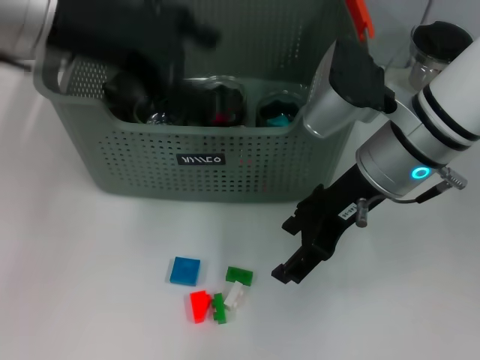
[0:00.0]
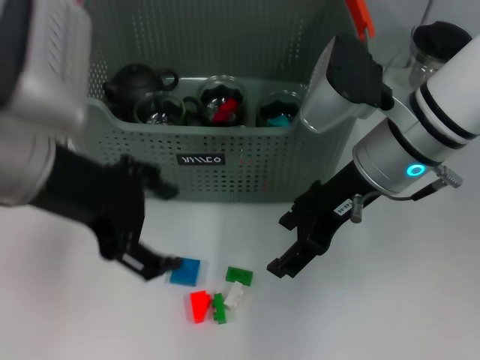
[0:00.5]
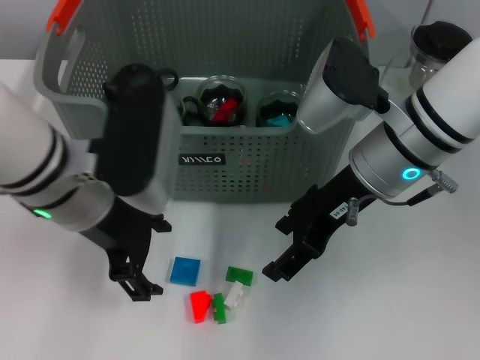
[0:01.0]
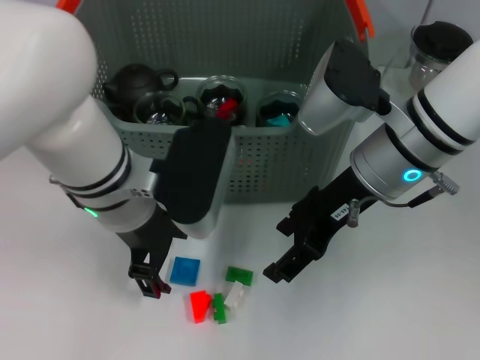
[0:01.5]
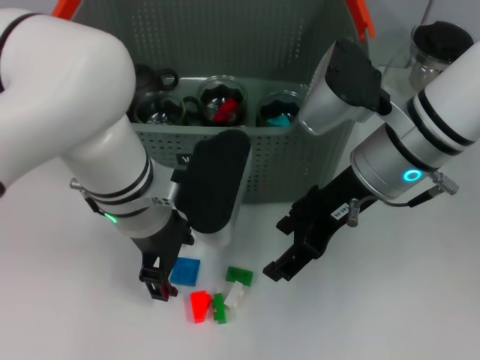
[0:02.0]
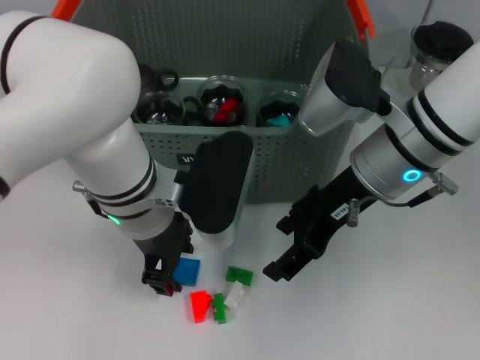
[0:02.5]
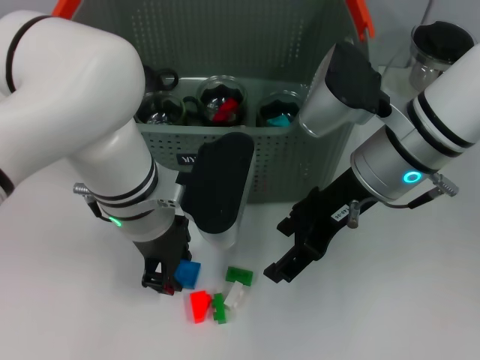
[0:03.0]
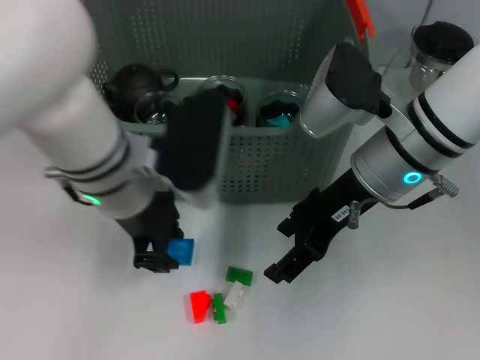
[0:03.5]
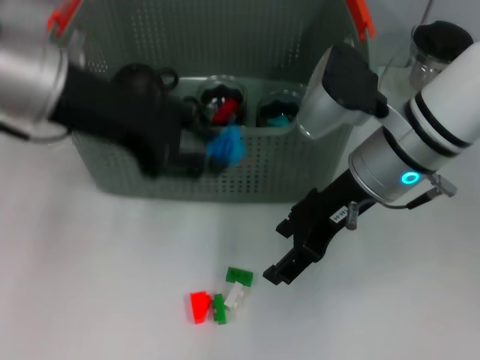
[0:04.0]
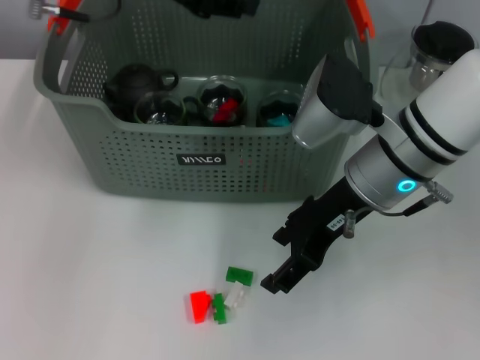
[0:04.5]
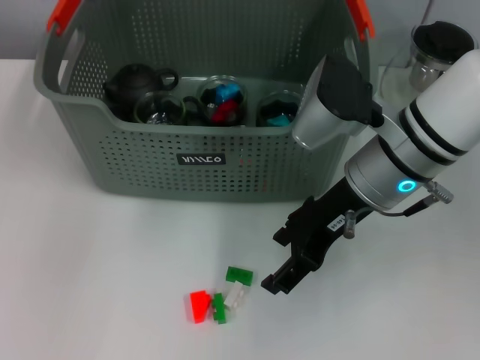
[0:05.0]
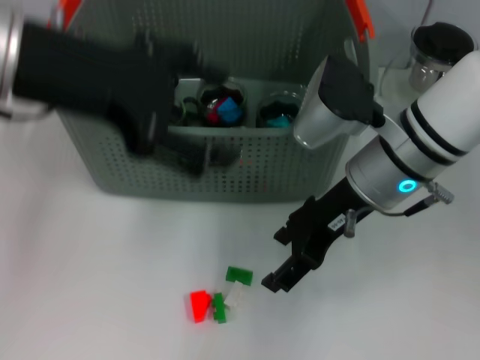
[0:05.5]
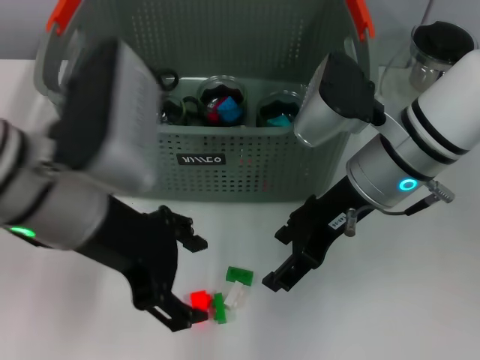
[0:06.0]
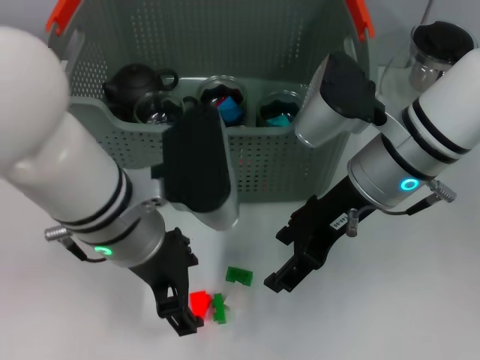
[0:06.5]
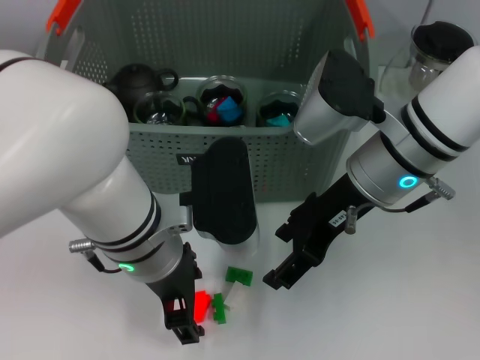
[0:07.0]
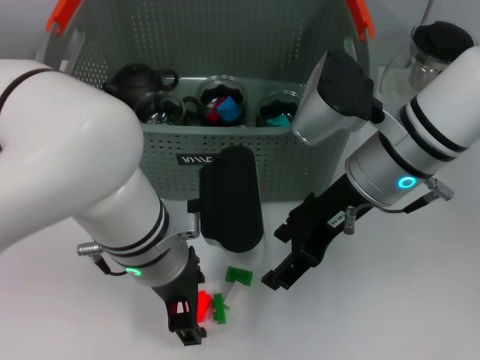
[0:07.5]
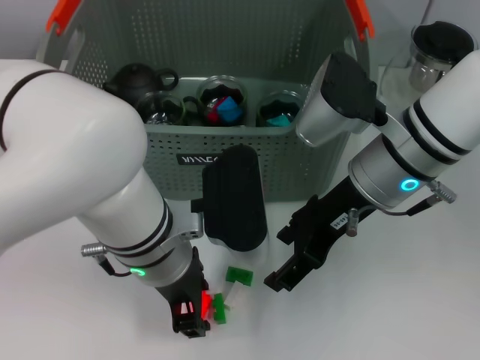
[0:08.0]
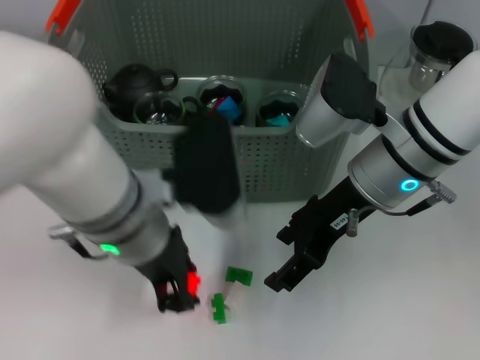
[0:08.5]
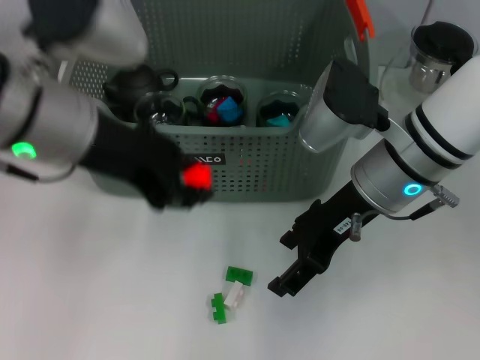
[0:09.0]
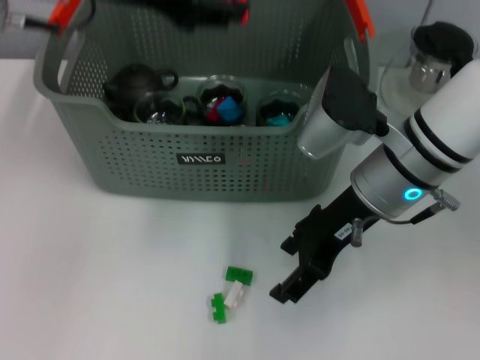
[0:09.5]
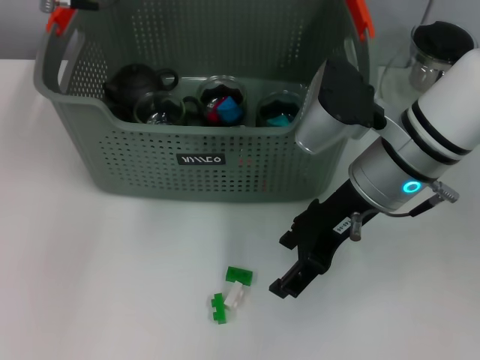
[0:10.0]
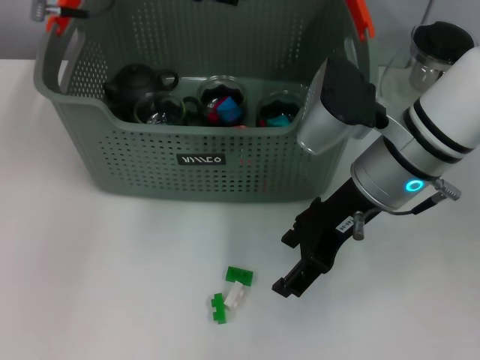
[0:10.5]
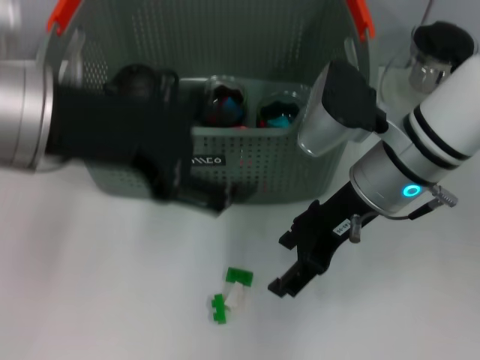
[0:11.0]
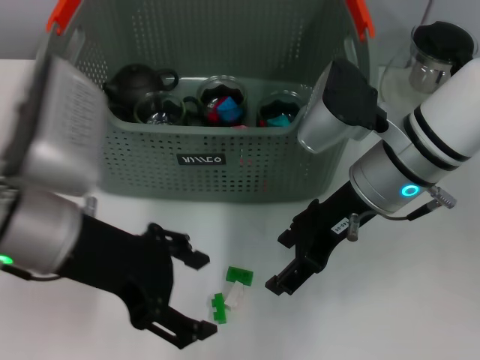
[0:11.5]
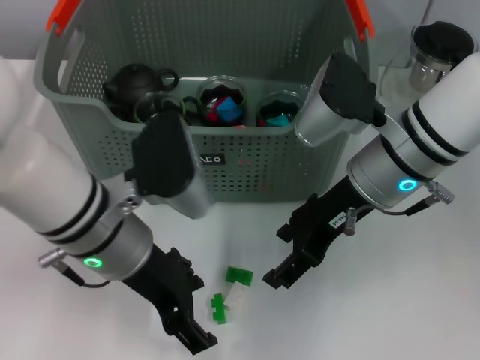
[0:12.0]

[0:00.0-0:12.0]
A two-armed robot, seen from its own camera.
Task of the whole recording: pick up the teacup on the table and place it into the storage bin, pick up the block on the table and place it into the storage bin.
Step, 0.0 to 2.5 s: Grasp the dark blue block with left gripper.
Step, 3.5 to 5.0 s: Place the dark blue block in the storage box with left gripper.
Step, 5.5 to 8.0 s: Grasp the orange block with left gripper.
Step, 8.5 to 10.0 s: Place the orange block in the storage box with left gripper.
0.0 to 2.0 s: The left gripper is displaced downward and to the right by approximately 20 cm.
2.0 to 4.0 s: The left gripper moves upward and to the left, roughly 15 cm, and closes.
4.0 to 6.0 s: The left gripper heads downward and backward, covering roughly 10 cm, and opens up.
6.0 to 8.0 s: The left gripper goes approximately 10 cm downward and to the right.
8.0 to 10.0 s: The left gripper travels upward, forward and to the left by roughly 20 cm, and closes its fingers.
10.0 to 12.0 s: The left gripper goes some 20 cm downward and backward, and opens up.

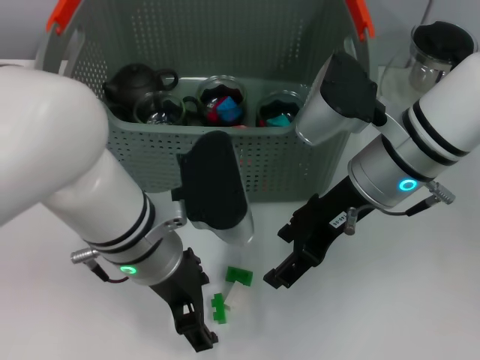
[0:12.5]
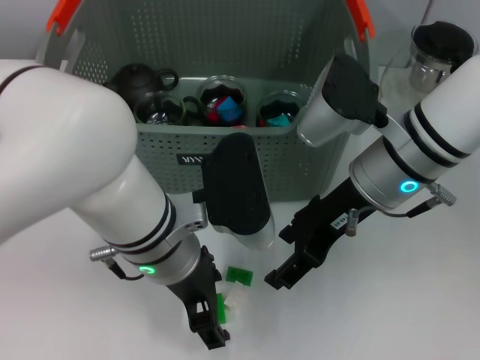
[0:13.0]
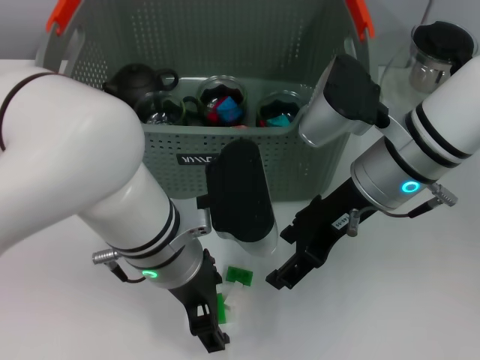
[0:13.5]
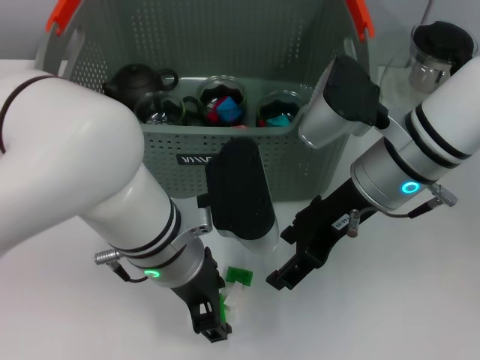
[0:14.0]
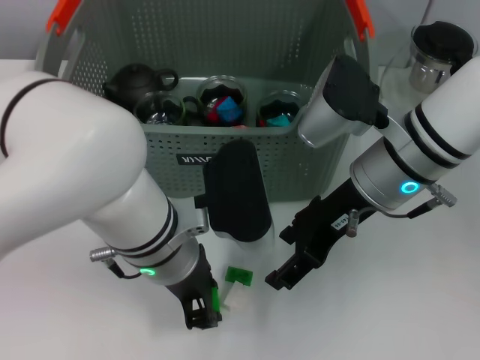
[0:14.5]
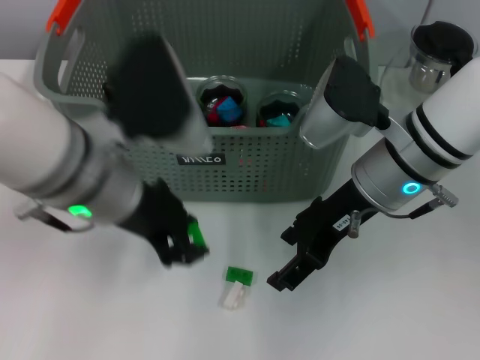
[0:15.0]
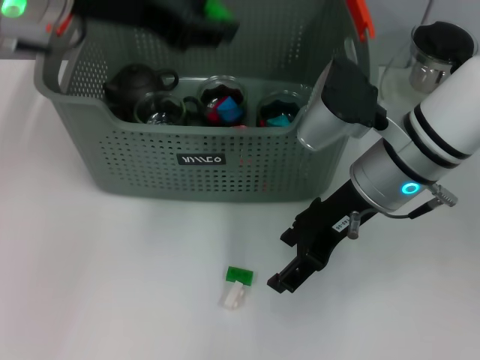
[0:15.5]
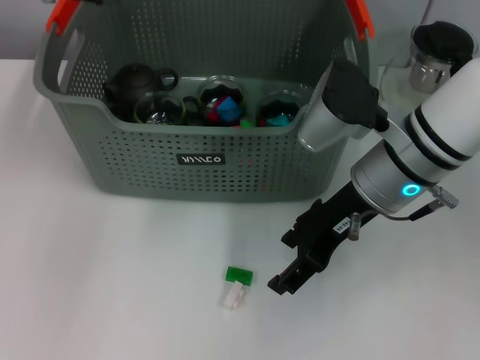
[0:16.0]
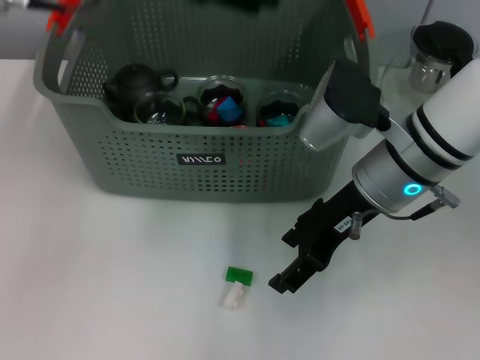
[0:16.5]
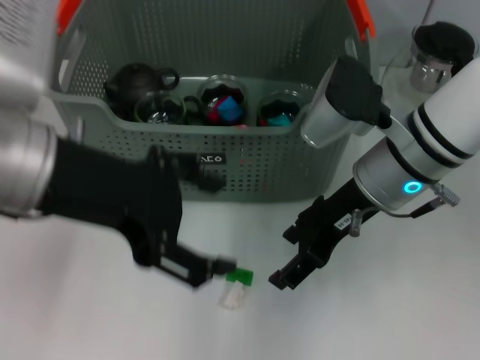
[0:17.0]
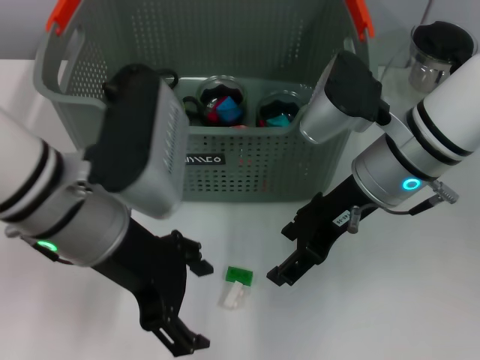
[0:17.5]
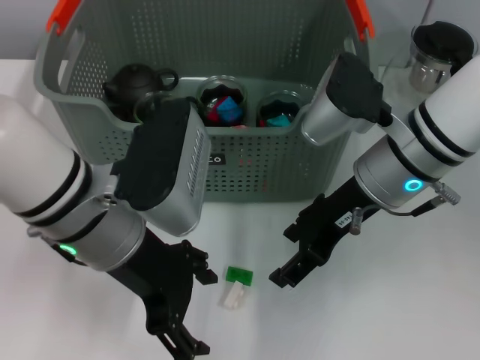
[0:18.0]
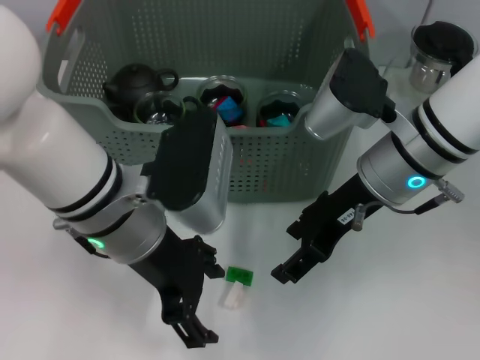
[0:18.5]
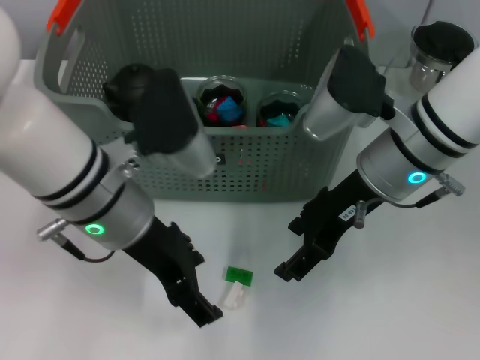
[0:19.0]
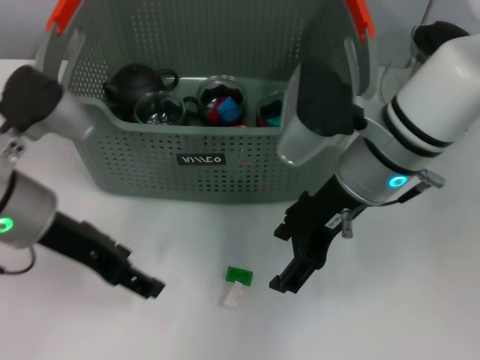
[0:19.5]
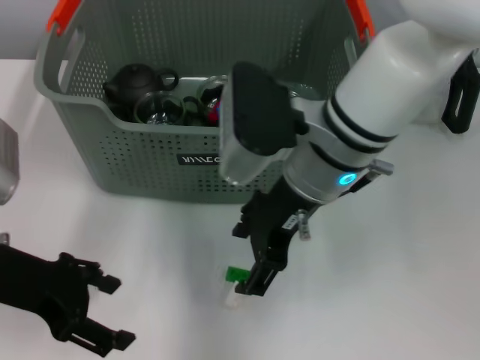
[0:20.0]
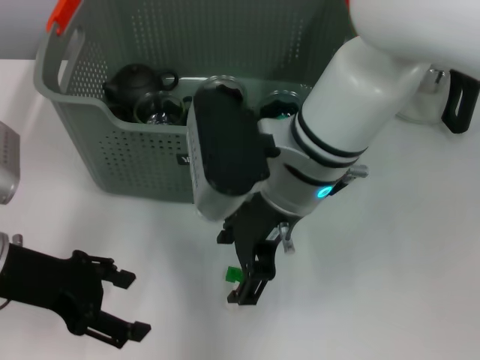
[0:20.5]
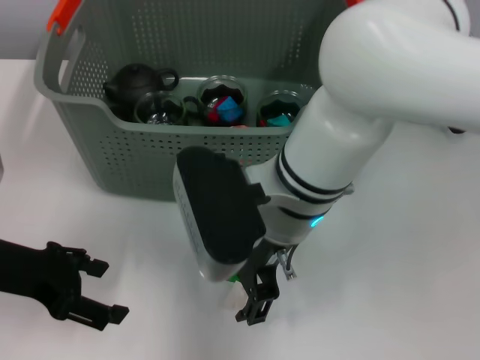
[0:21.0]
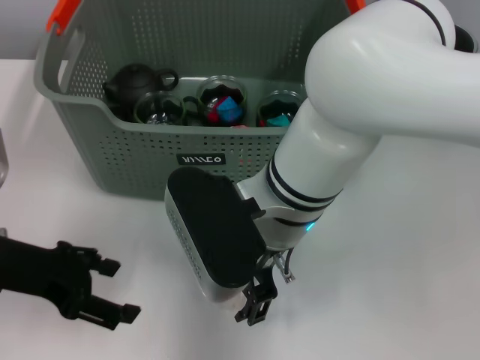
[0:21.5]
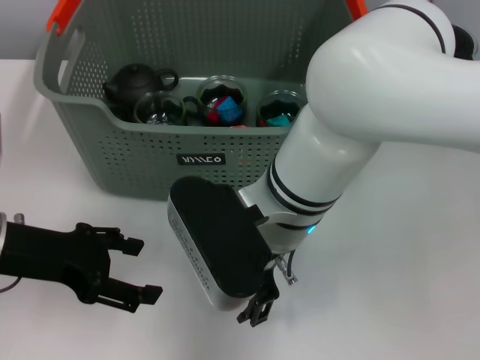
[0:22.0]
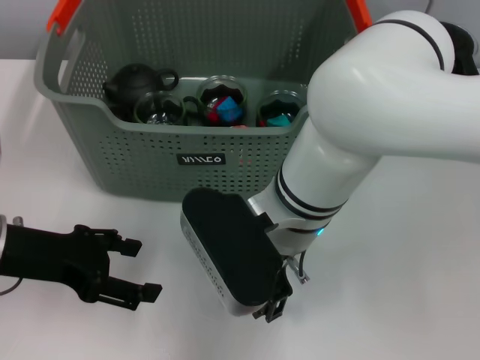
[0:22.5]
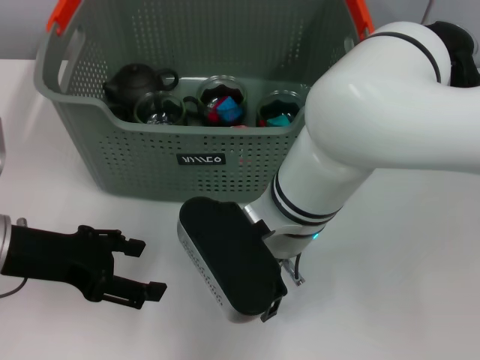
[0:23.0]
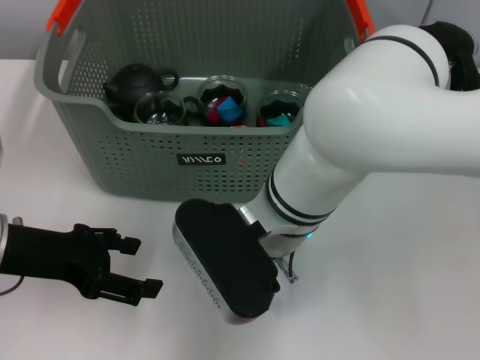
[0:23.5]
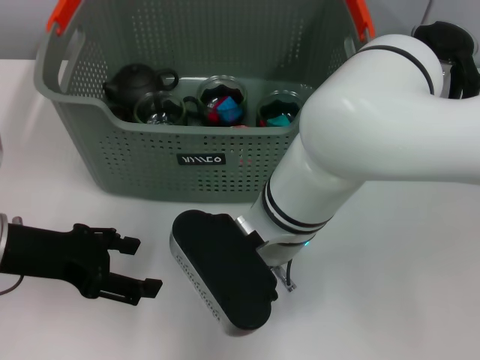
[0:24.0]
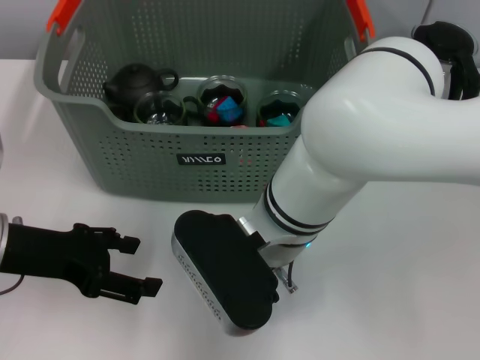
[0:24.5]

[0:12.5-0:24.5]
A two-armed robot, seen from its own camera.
Task of the whole recording: pick up the teacup on the table and place it into the storage bin, pick up the block on the table and place it into the storage bin.
Step, 12.5 to 14.5 s: Grasp the green block with left gripper.
Step, 15.0 to 16.0 s: Place the green block in the storage box with left gripper.
12.5 to 14.5 s: The left gripper closes up.
14.5 to 16.5 s: The left gripper shifts some 20 cm upward and to the left, and opens up.
16.5 to 18.5 s: The left gripper goes about 20 cm downward and backward.
18.5 to 20.5 s: Both grippers travel together to the left, roughly 10 cm.
22.5 to 24.5 s: The grippers make only small movements.

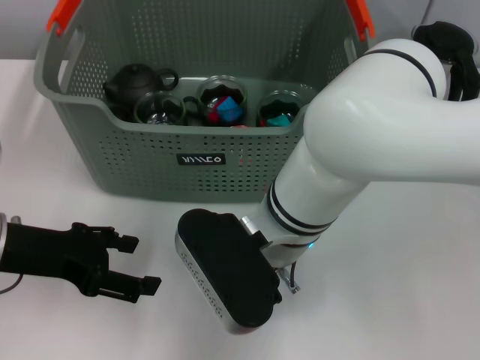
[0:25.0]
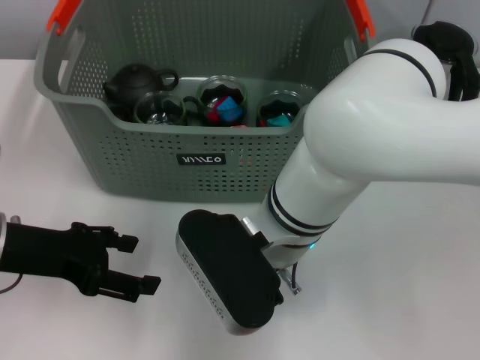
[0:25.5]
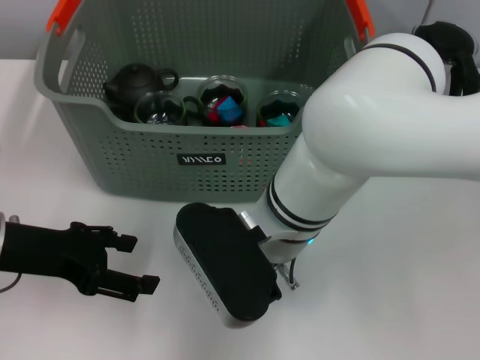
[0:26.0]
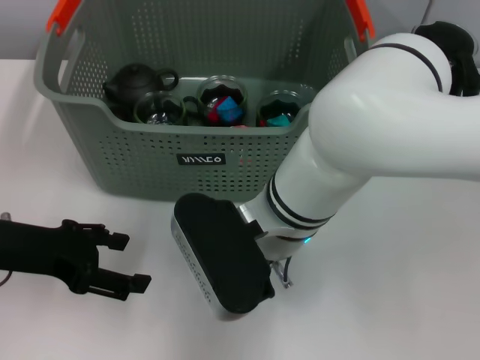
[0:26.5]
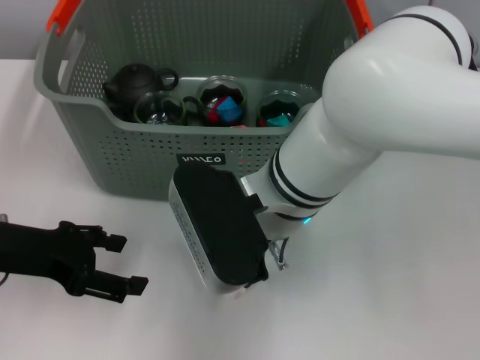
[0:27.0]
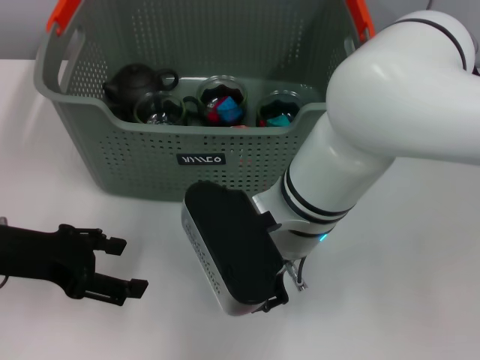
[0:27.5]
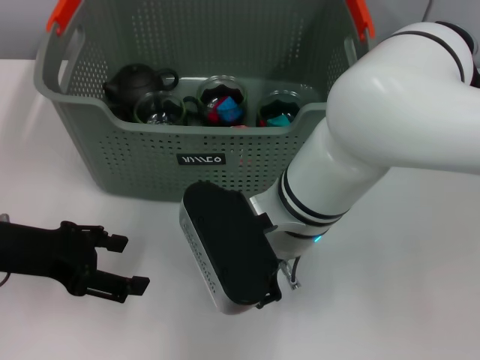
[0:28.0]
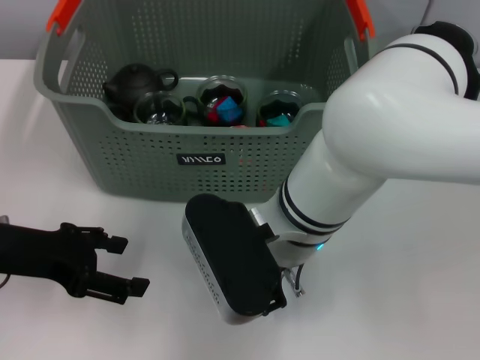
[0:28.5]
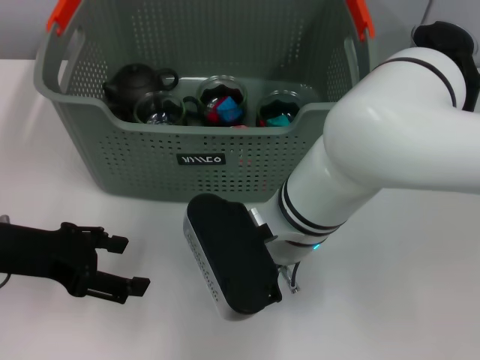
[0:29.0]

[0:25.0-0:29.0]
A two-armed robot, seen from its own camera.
Task of the whole recording: pick up the teacup on the table and place it into the storage bin, pick up the block on the table and place it into the storage bin.
25.0 to 27.0 s: The right gripper closes.
27.0 to 29.0 s: The grippers make only small movements.
